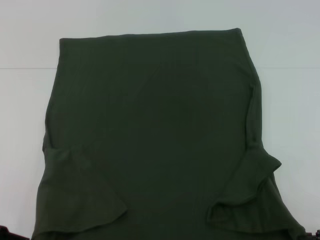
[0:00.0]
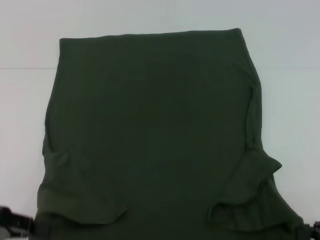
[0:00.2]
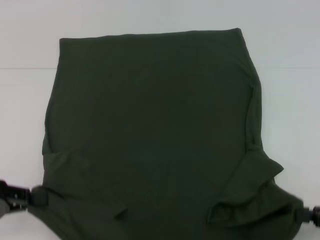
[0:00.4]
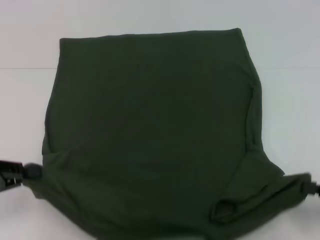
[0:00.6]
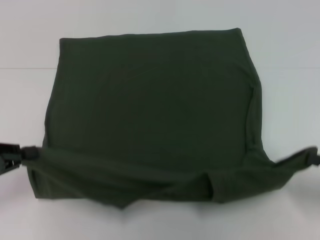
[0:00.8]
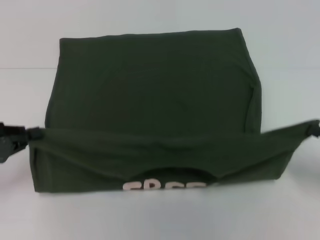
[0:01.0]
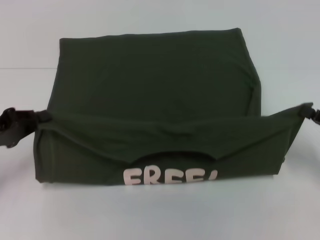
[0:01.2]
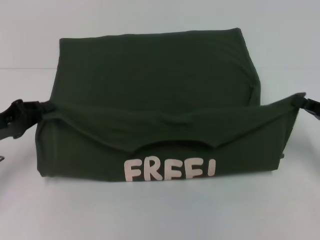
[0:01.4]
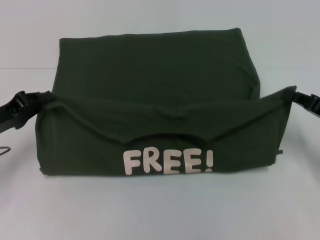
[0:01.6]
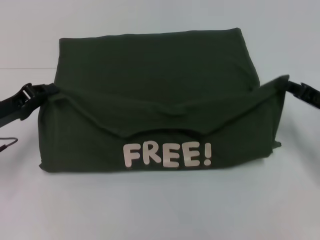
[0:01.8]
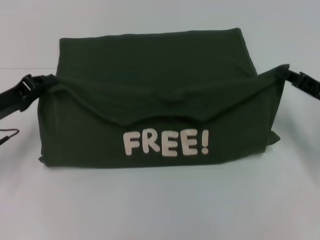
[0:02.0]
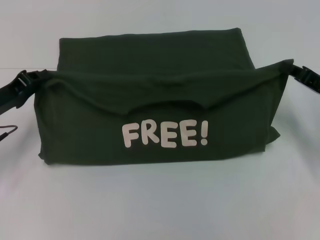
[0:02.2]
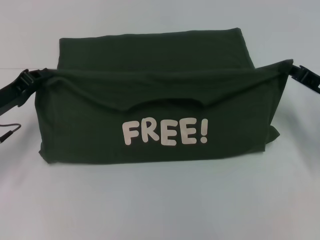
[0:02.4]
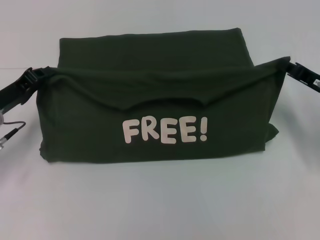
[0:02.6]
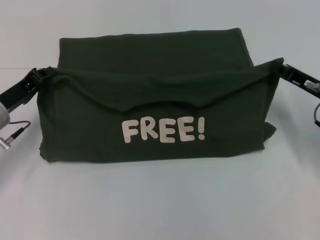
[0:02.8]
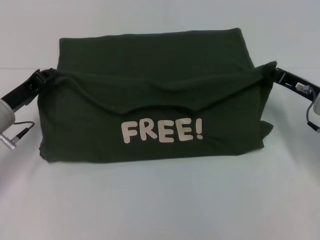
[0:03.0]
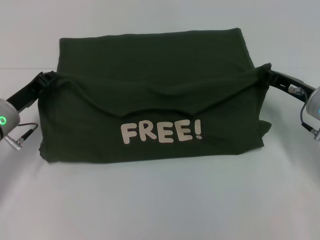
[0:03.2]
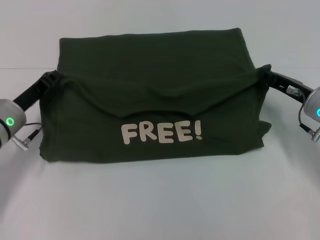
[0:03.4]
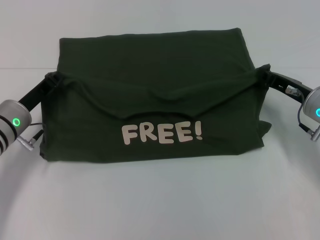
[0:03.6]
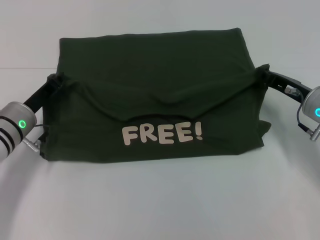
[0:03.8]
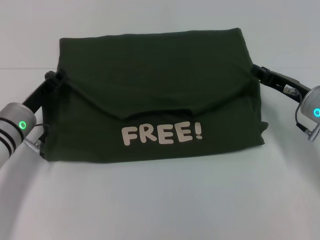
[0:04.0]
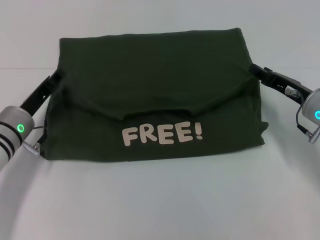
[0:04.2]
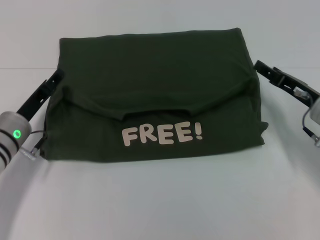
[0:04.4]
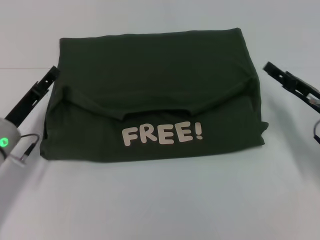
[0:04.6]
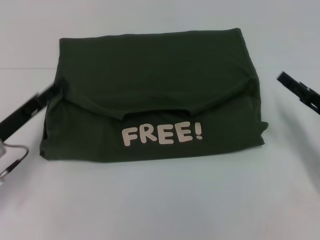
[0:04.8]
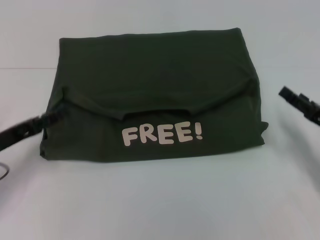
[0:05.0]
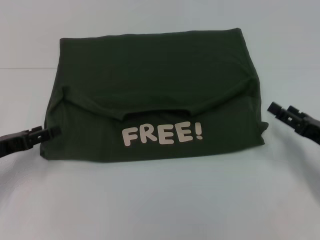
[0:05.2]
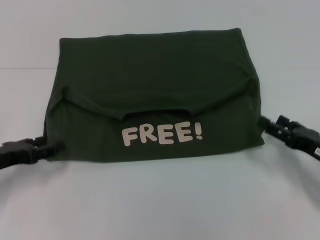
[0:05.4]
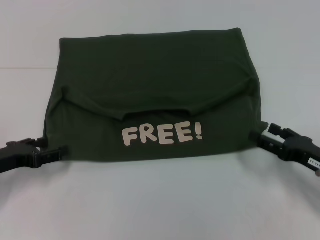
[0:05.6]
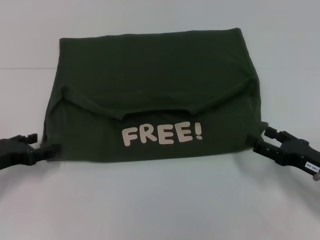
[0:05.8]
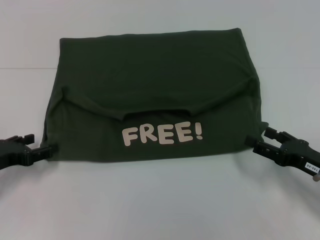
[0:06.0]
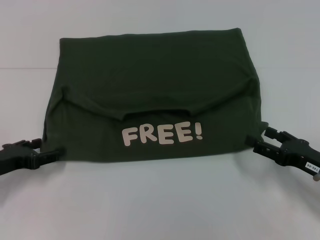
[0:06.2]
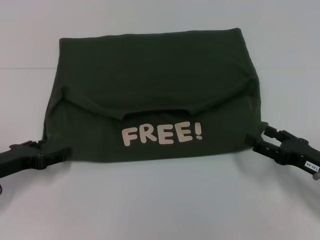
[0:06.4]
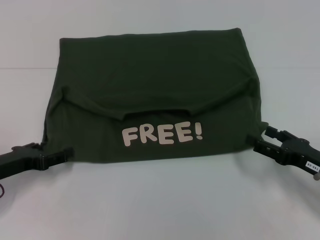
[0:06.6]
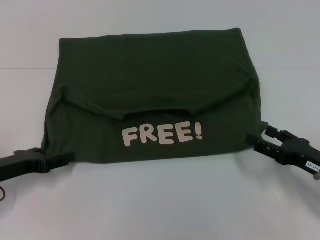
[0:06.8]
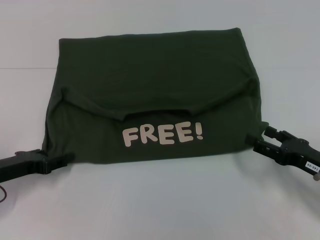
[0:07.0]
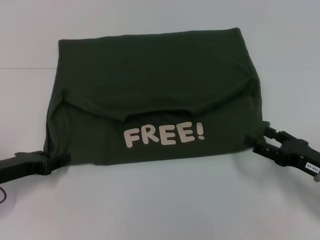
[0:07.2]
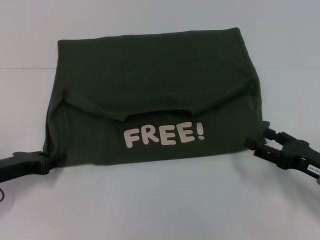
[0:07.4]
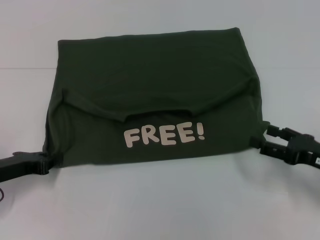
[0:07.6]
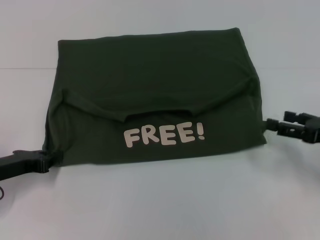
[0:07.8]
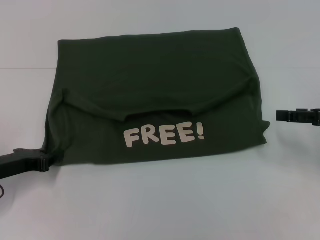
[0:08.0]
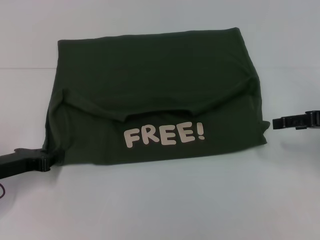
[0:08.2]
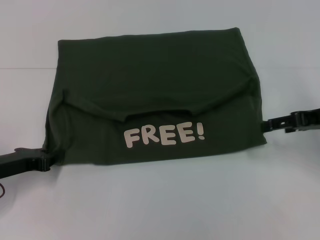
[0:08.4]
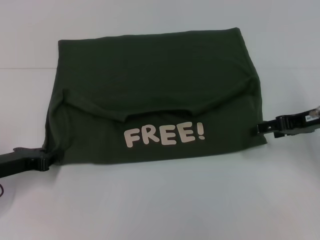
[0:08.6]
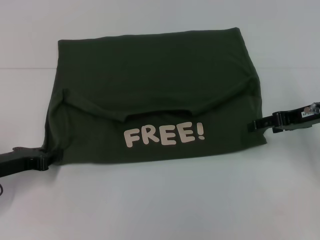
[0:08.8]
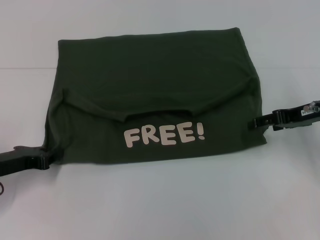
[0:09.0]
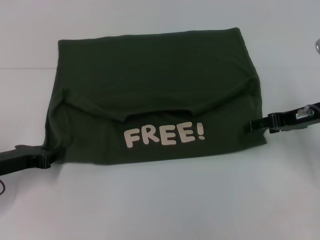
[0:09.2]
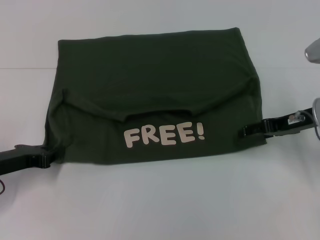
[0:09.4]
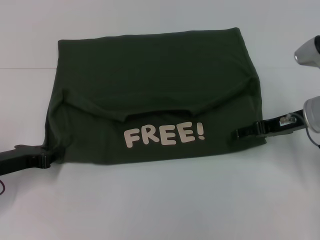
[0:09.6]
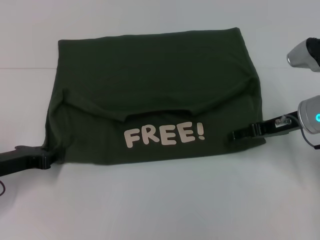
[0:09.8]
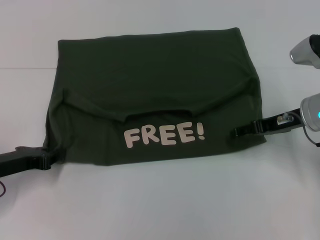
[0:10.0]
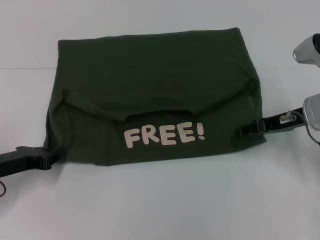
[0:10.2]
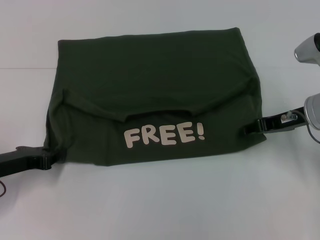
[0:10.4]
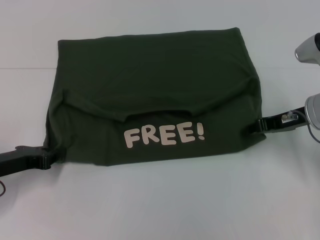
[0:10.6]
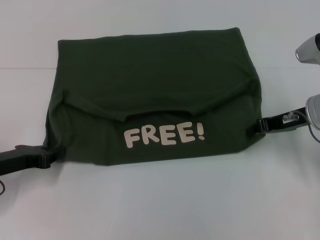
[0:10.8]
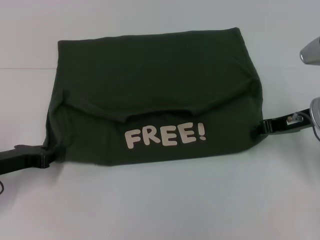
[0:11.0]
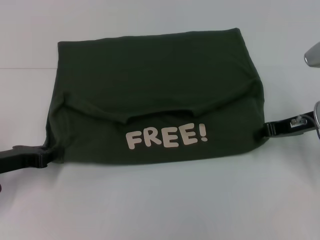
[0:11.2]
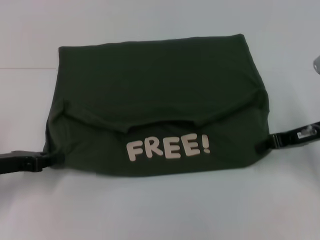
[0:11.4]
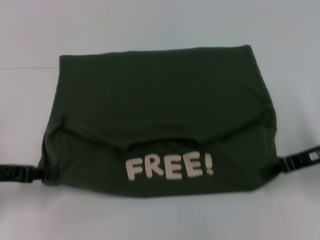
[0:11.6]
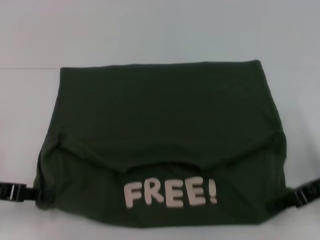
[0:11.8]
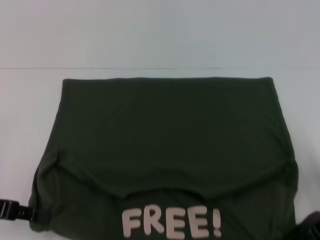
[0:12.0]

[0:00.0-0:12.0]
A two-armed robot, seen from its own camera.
Step, 0:00.0 to 0:04.4: Fold the clothes with your left hand.
Step, 0:00.0 to 0:04.4: Fold the clothes with your right hand.
0:00.0 to 0:01.6: The grippers both shift forward by roughly 10 cm.
0:01.6 to 0:03.0: The right gripper is displaced forward and to the left by approximately 10 cm. The left gripper shifts by roughly 5 cm.
0:03.0 to 0:04.4: The right gripper opens its fingers.
0:04.4 to 0:06.0: The left gripper goes roughly 10 cm to the left and backward, and opens. Meanwhile the right gripper travels backward by about 10 cm, and opens its fingers.
0:06.0 to 0:07.6: The left gripper closes.
0:07.6 to 0:09.0: The right gripper is displaced forward and upward by about 15 cm.
0:09.0 to 0:10.4: The grippers move only a little.
0:10.4 to 0:12.0: The right gripper moves backward, about 10 cm, and closes its fingers. Meanwhile the left gripper heads upward, covering roughly 5 cm.

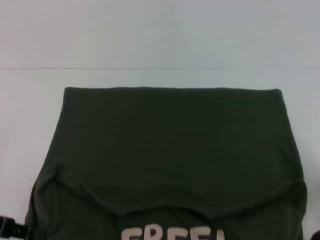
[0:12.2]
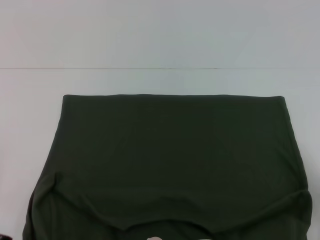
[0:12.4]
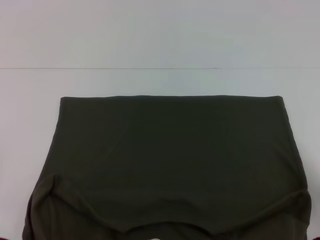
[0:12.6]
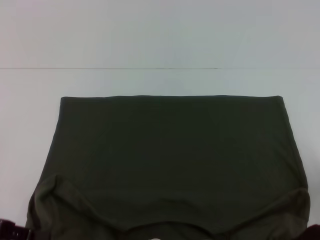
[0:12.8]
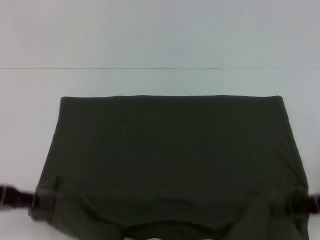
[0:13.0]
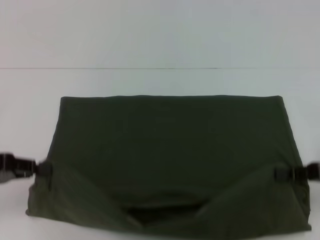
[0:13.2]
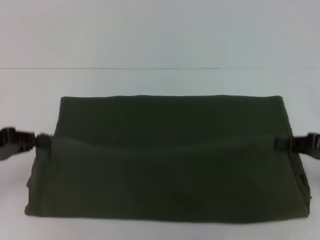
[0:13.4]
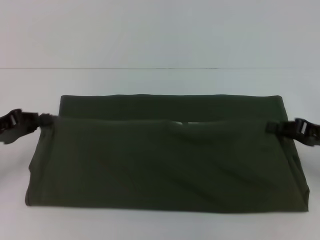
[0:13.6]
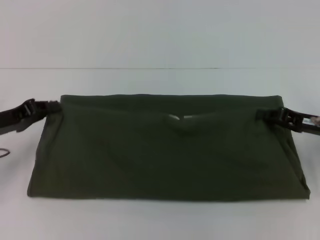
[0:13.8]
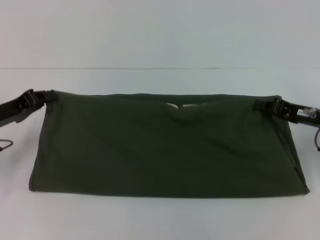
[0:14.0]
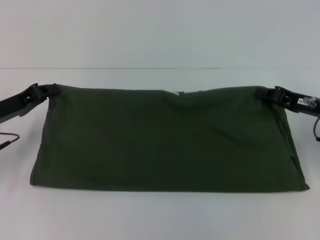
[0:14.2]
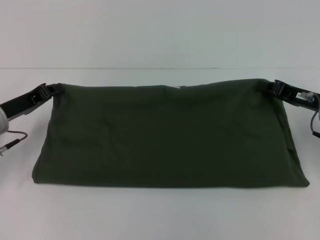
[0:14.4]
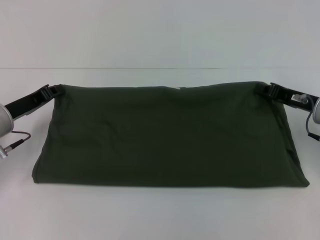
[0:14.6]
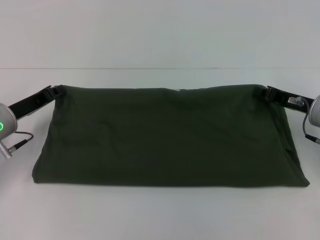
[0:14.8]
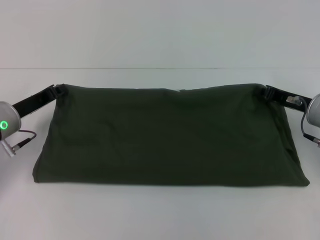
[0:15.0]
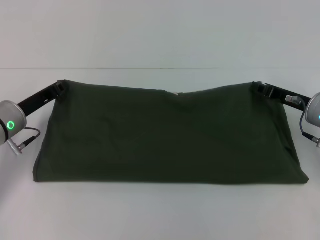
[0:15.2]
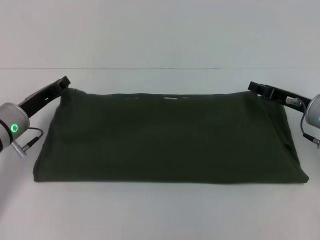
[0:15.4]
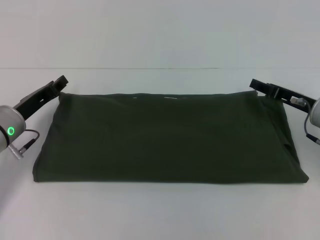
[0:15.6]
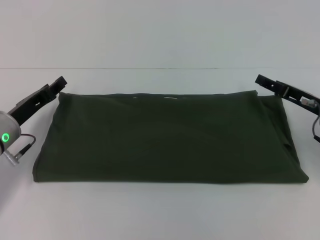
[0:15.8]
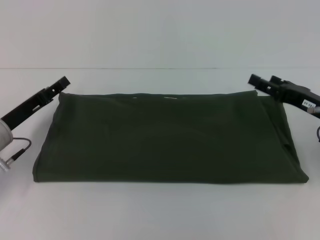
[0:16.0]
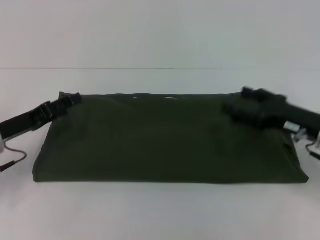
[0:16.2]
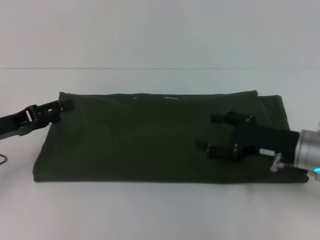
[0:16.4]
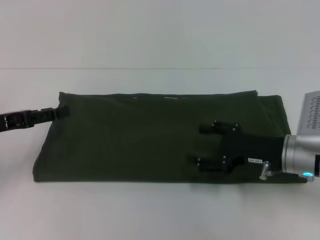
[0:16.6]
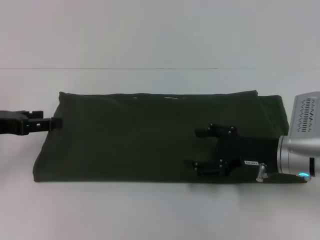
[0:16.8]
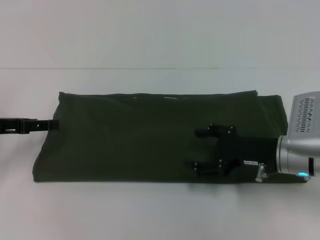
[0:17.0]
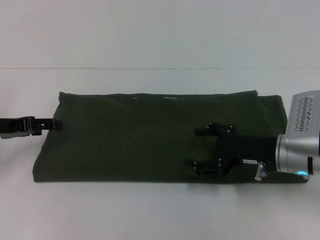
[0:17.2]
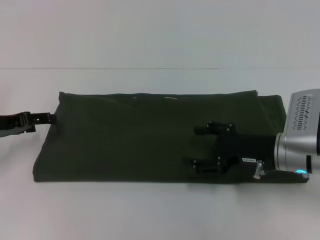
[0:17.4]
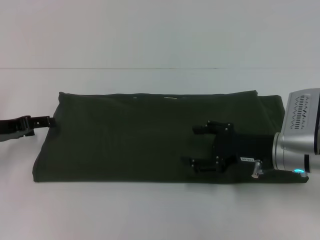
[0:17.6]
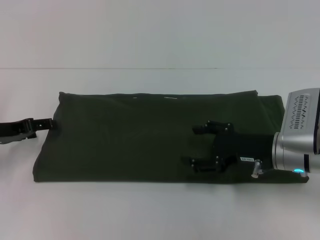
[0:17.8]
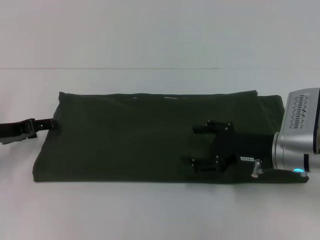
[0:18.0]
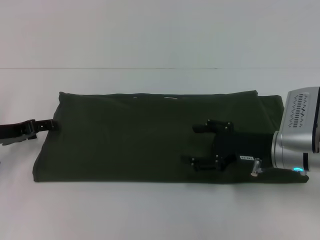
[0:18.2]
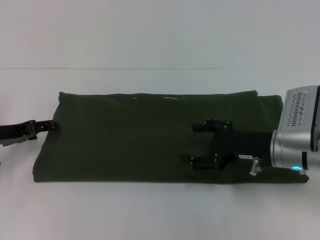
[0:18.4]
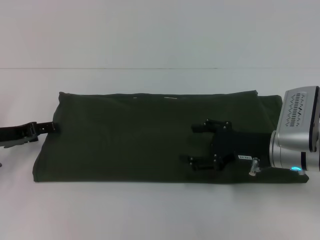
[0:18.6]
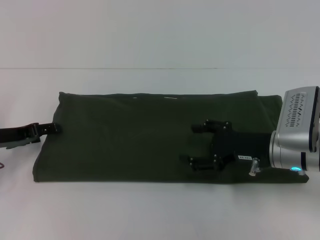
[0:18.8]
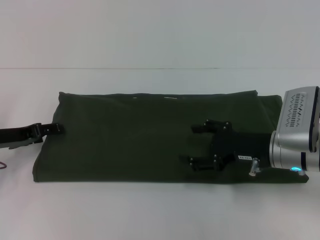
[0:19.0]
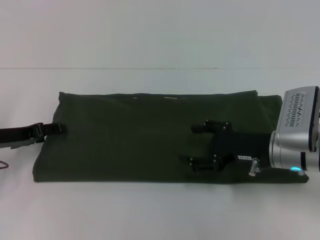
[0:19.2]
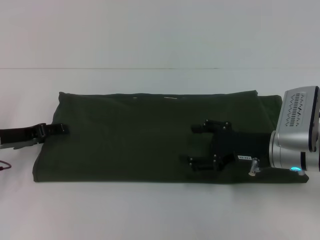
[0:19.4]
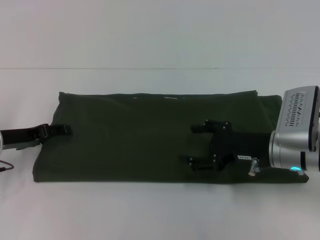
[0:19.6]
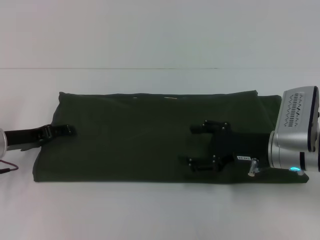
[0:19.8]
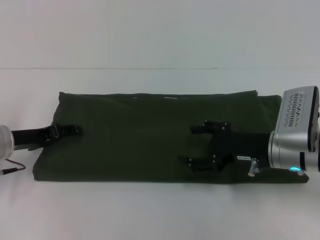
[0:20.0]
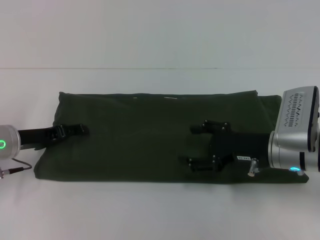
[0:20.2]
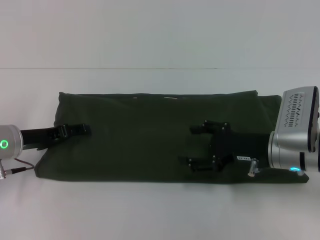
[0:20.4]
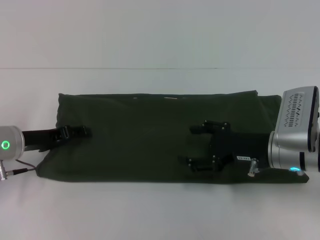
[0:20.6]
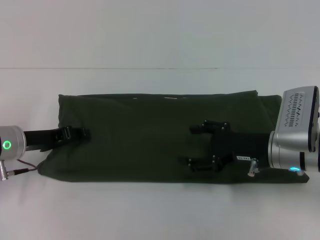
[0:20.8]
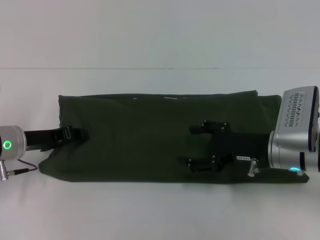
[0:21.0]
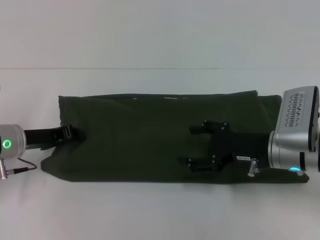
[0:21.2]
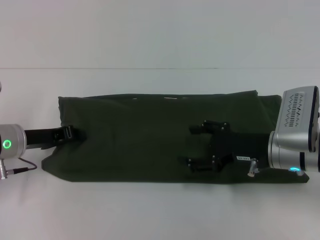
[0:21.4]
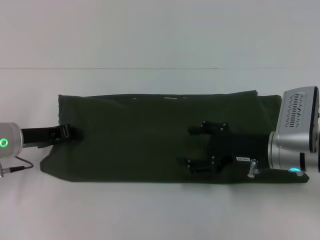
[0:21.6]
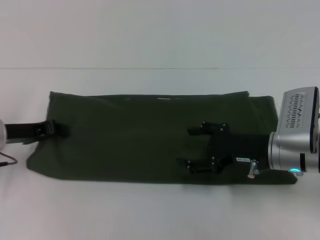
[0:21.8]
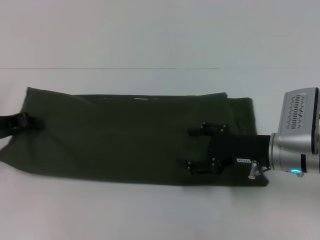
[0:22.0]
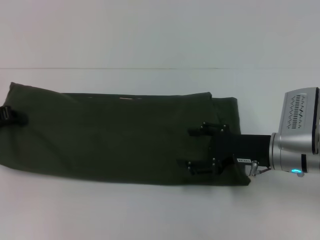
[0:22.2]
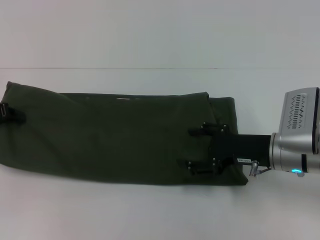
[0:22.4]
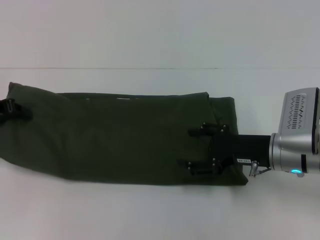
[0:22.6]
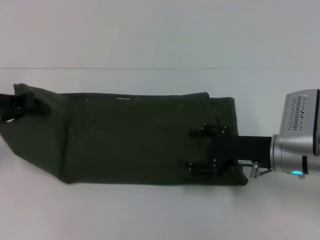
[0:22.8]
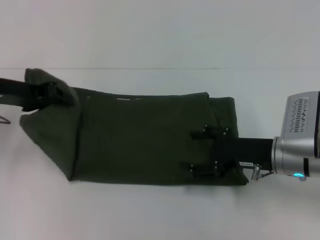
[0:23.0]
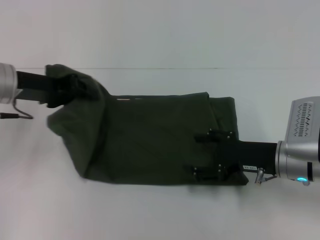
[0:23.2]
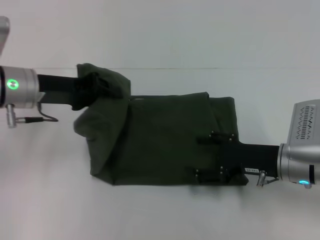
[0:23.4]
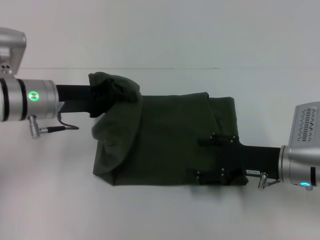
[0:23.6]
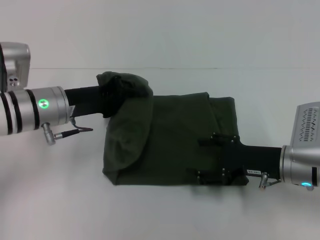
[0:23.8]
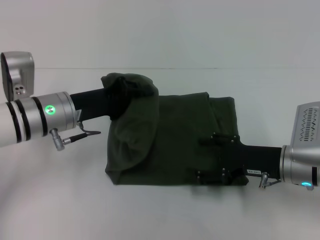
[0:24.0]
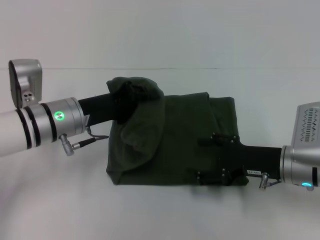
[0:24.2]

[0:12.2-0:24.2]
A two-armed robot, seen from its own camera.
Step, 0:12.4 to 0:15.6: Fold the clothes with your right hand.
0:12.2 to 0:13.8: Both grippers move forward, roughly 10 cm.
0:13.8 to 0:15.2: The left gripper travels to the right by approximately 5 cm; the right gripper changes place by approximately 5 cm.
0:15.2 to 0:16.6: The right gripper travels backward and to the left by some 10 cm, and opens up; the left gripper is displaced to the left, upward and backward by approximately 10 cm, and opens its fingers.
0:16.6 to 0:18.2: The left gripper ends up roughly 5 cm from where it was.
0:18.2 to 0:19.8: The grippers stay close to where they were, moving slightly.
0:19.8 to 0:21.2: The left gripper closes its fingers.
0:21.2 to 0:22.6: The left gripper shifts some 10 cm to the left and upward.
0:22.6 to 0:24.2: The left gripper is displaced to the right by roughly 15 cm.
